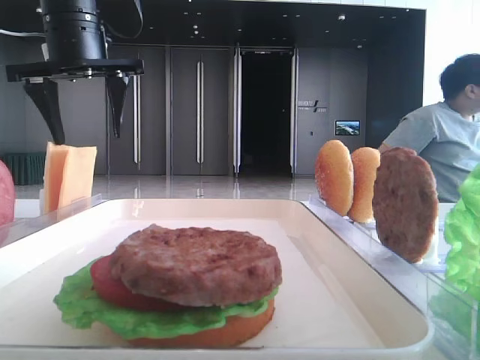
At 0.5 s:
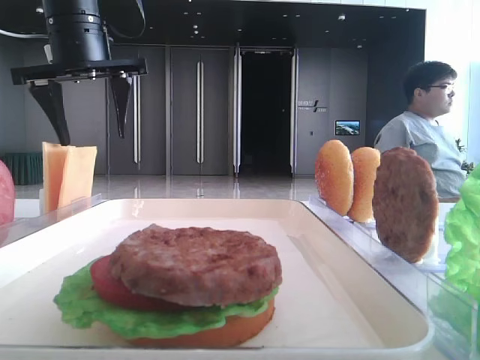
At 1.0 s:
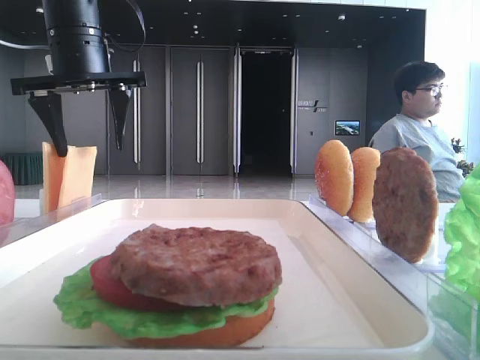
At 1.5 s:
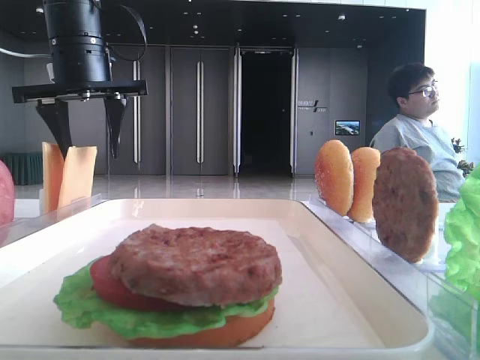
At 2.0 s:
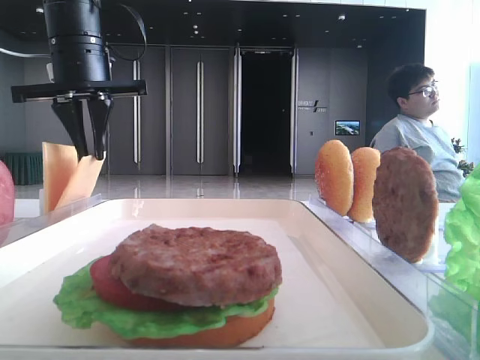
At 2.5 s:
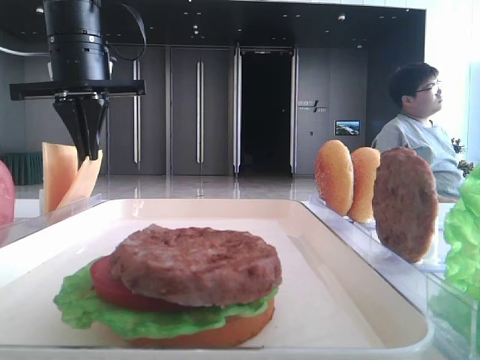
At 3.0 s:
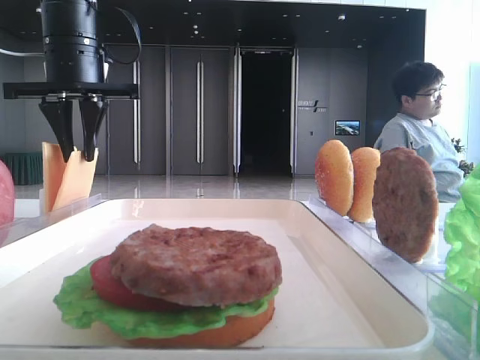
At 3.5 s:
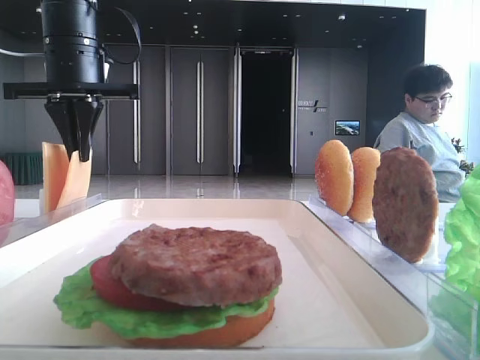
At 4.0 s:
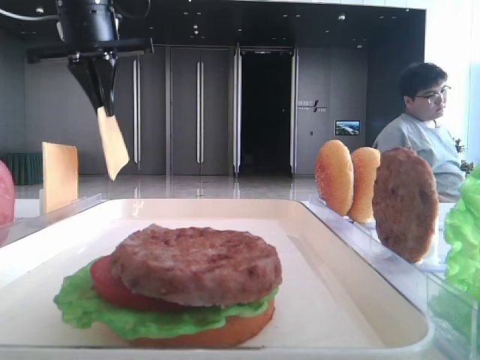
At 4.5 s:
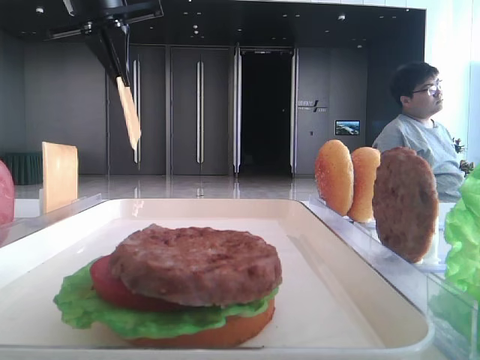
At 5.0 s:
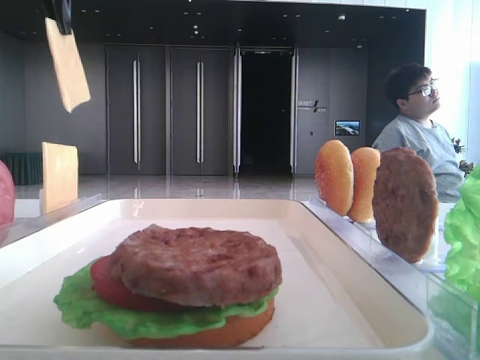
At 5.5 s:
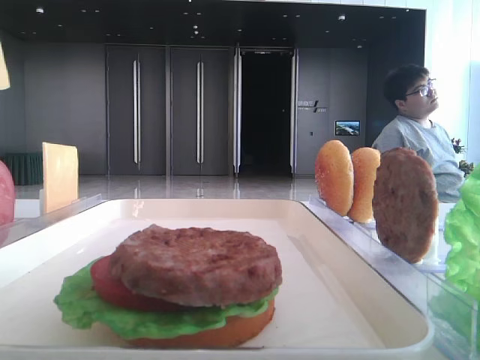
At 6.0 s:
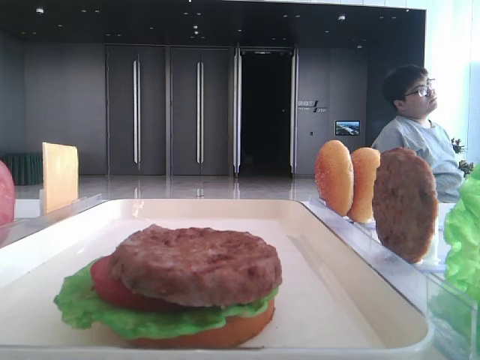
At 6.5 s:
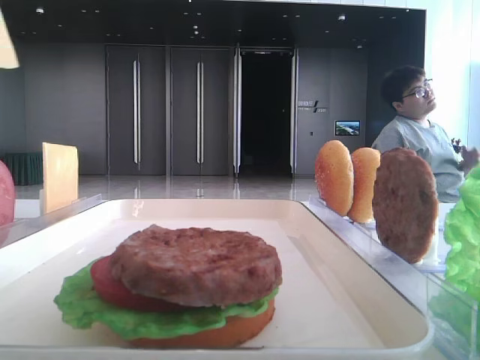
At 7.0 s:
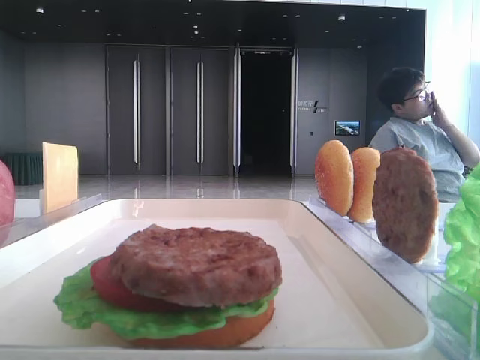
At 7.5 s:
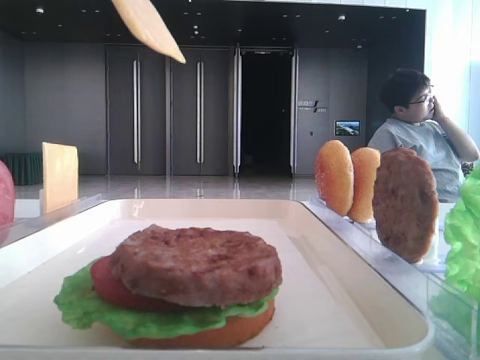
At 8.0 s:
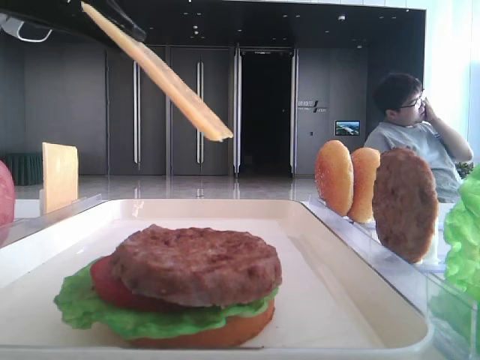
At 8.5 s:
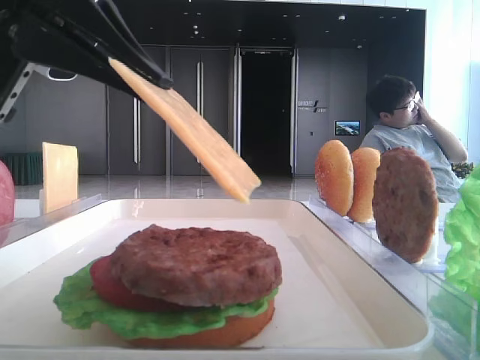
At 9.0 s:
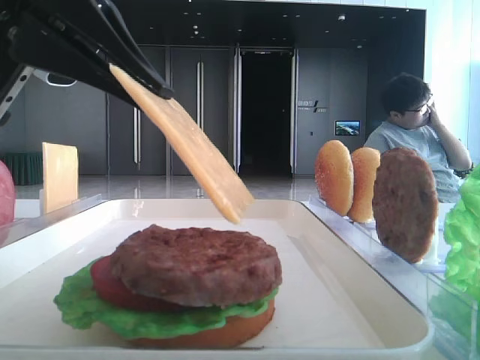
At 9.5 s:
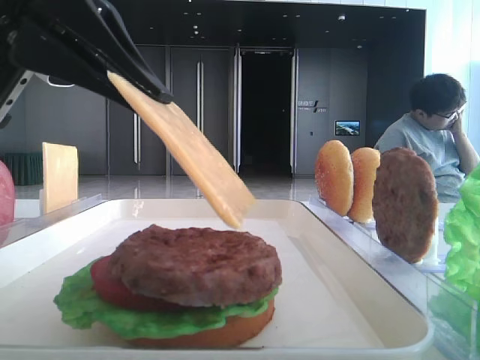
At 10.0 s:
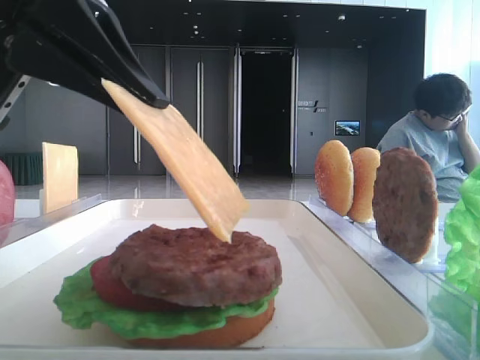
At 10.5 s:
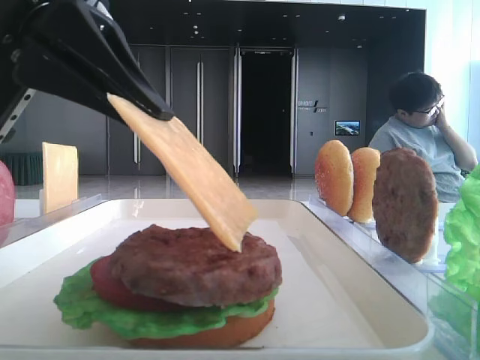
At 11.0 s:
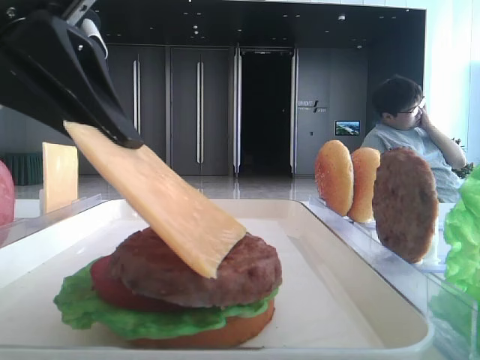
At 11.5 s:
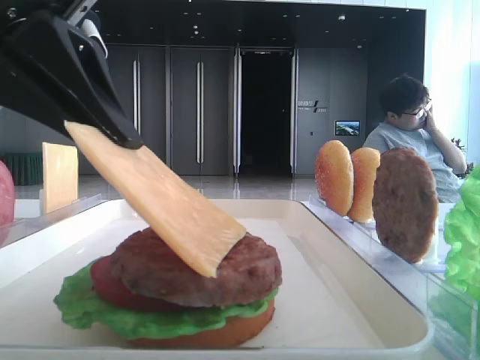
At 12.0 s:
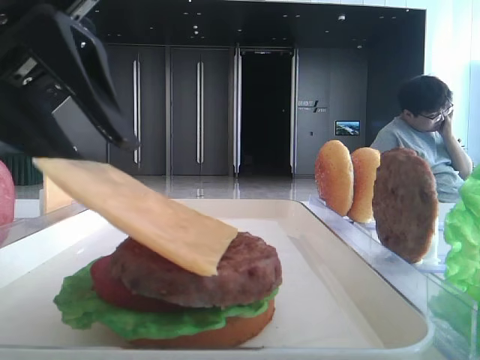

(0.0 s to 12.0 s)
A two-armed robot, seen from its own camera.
Step, 0.0 s - 3.5 s: Pick up the cheese slice with the left hand.
0.0 s - 2.0 s: The left gripper closes.
2.0 s - 4.0 s: There are only small adjustments of the grippers.
4.0 s - 6.0 s: The left gripper goes some 20 cm backward.
6.0 s - 8.0 s: The left gripper shifts some 15 cm downward and to the right.
8.0 s - 10.0 s: There are only small adjustments of the grippers.
10.0 s - 12.0 s: The left gripper opens.

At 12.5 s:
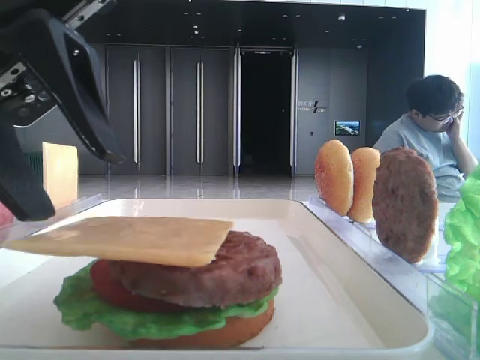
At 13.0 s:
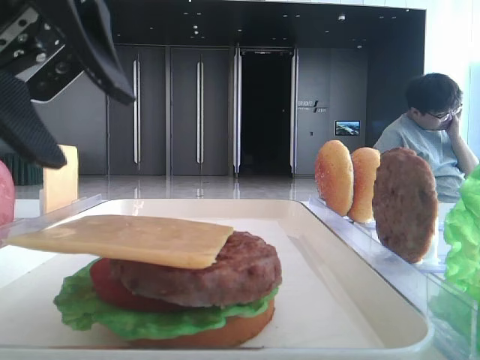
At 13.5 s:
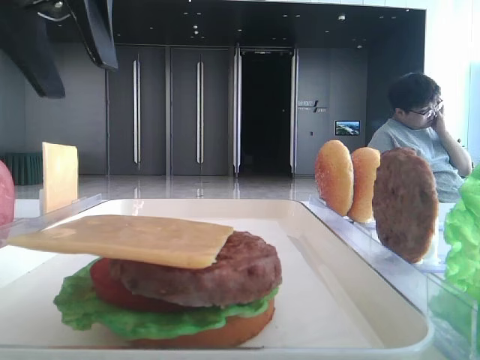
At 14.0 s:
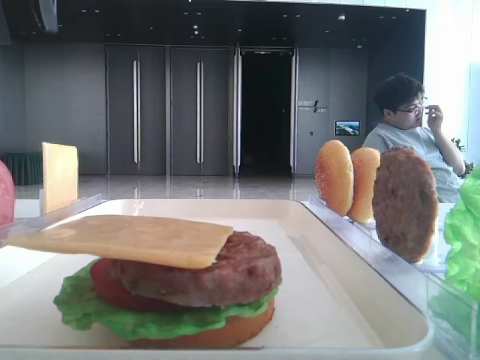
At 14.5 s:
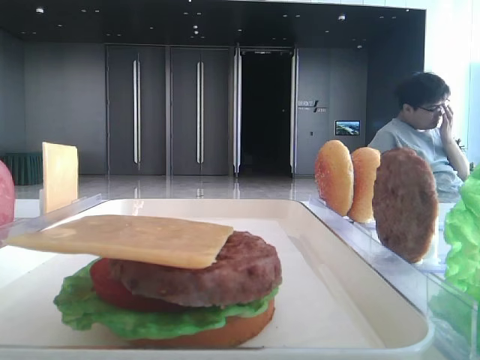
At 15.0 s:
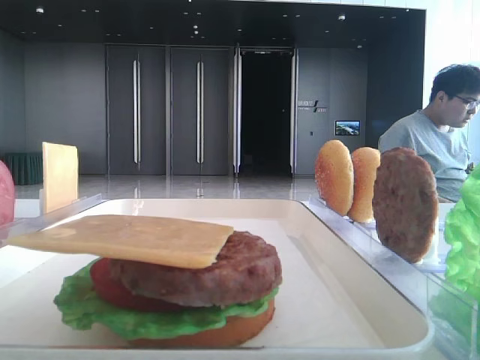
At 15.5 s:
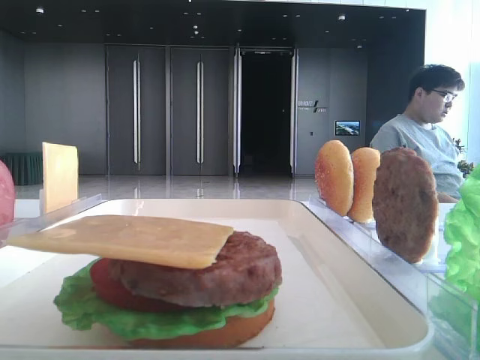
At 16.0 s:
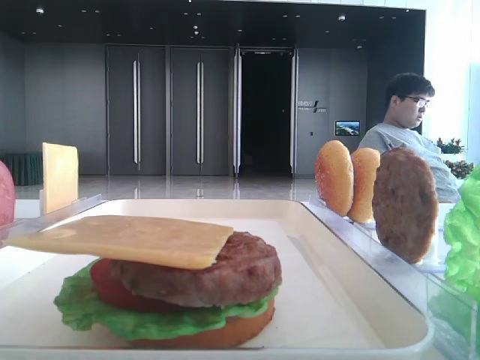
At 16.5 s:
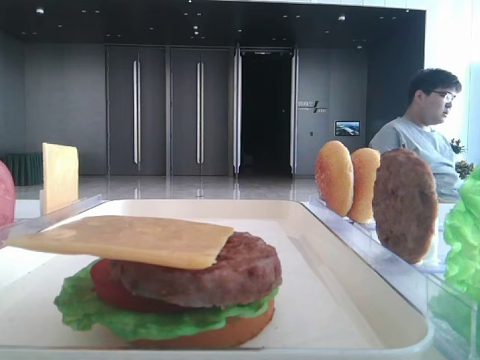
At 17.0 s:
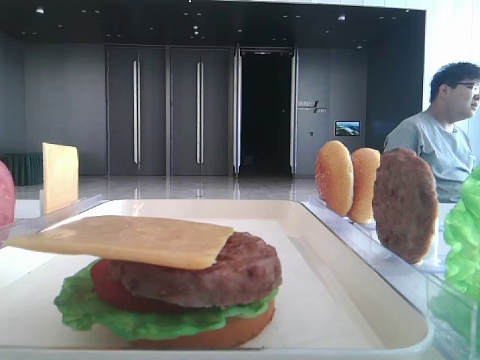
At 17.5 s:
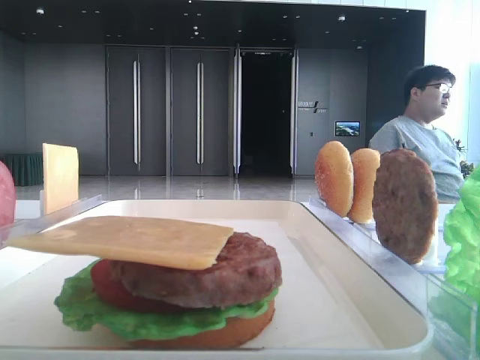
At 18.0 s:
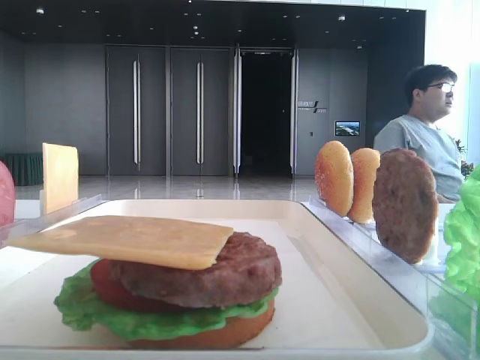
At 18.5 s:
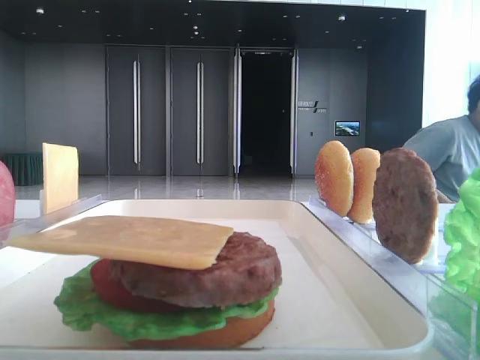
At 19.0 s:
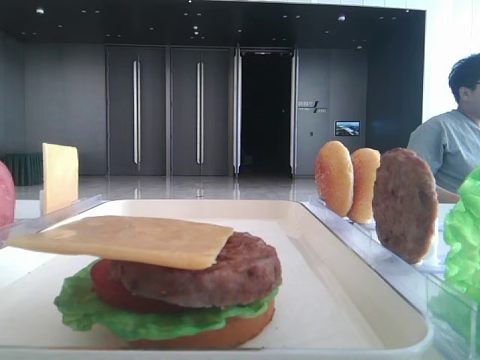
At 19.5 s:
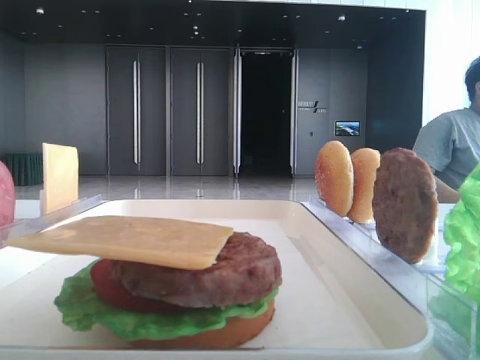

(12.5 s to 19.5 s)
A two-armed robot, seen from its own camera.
12.5 s - 14.5 s: The left gripper goes approximately 25 cm upward, to the left and forward.

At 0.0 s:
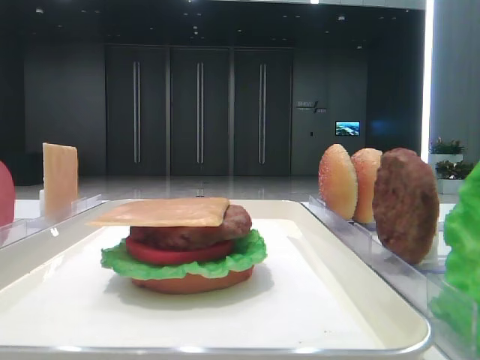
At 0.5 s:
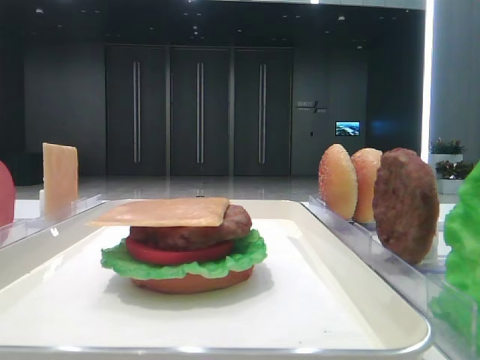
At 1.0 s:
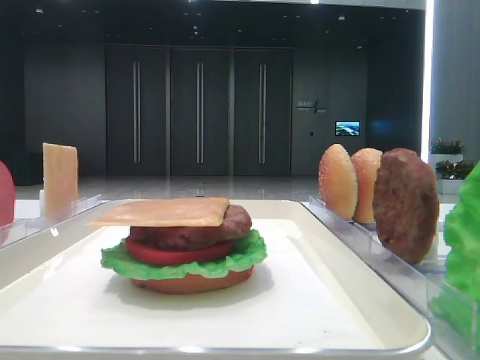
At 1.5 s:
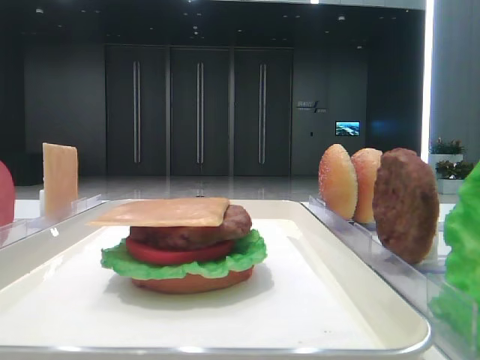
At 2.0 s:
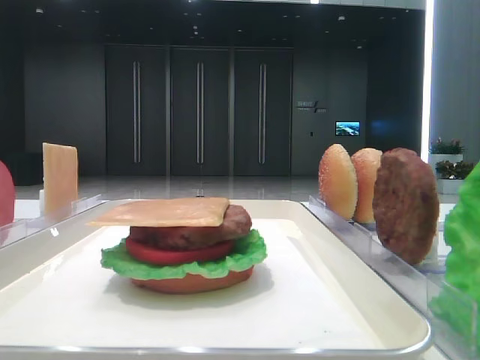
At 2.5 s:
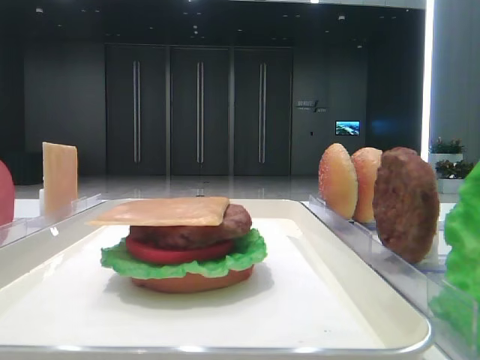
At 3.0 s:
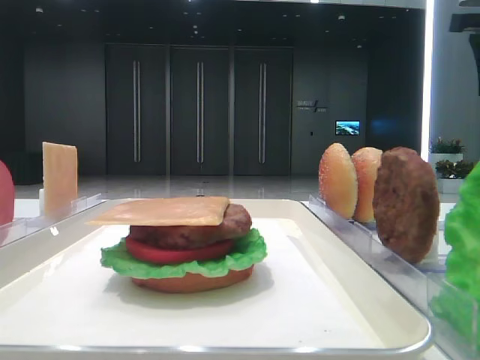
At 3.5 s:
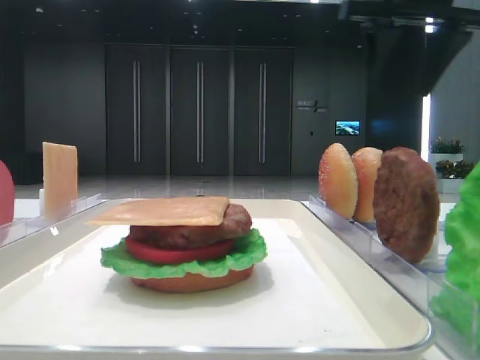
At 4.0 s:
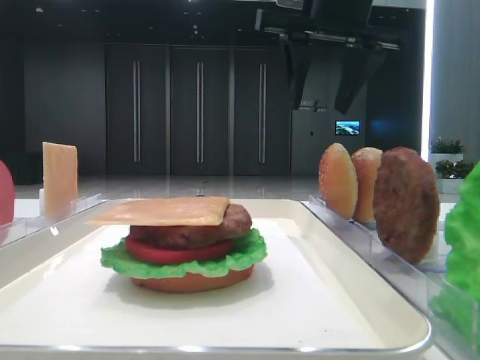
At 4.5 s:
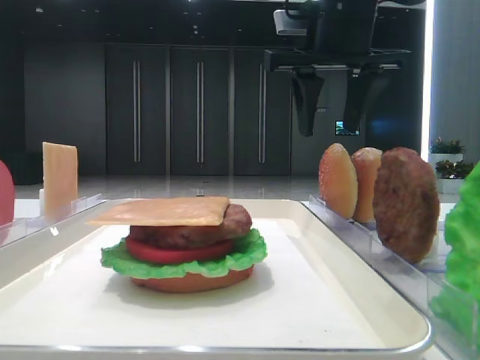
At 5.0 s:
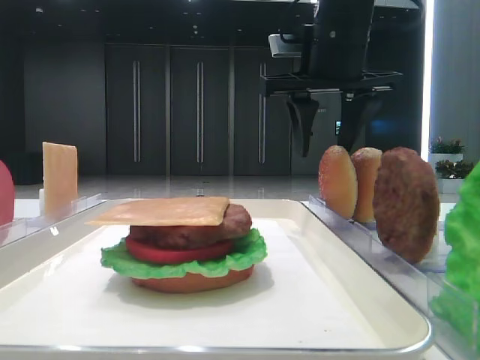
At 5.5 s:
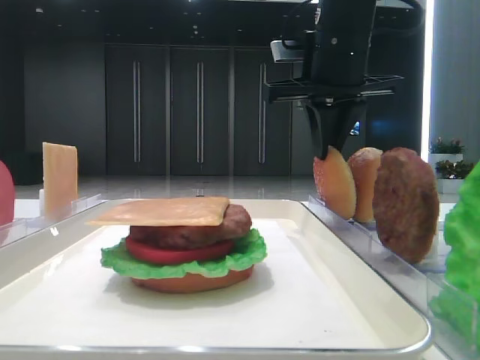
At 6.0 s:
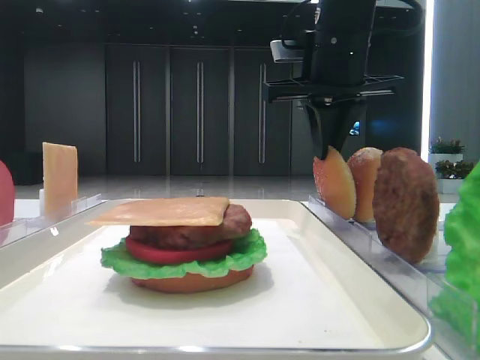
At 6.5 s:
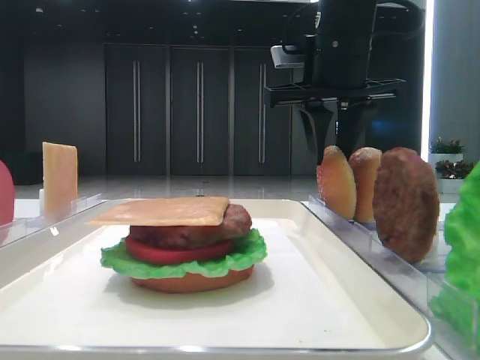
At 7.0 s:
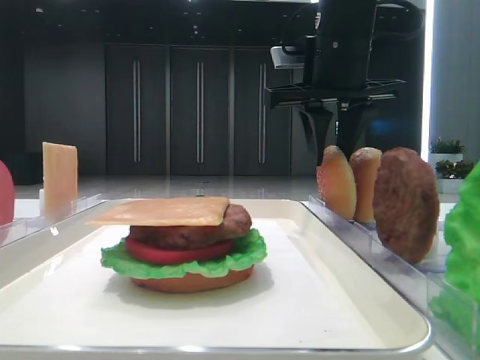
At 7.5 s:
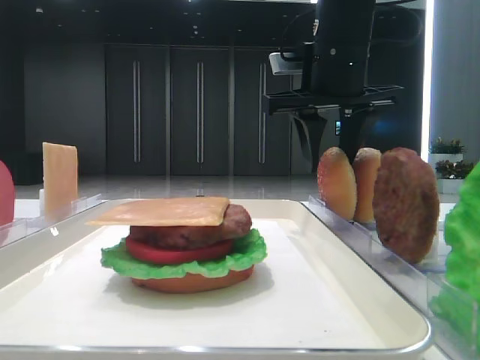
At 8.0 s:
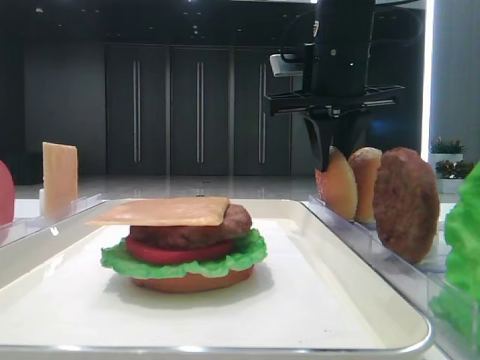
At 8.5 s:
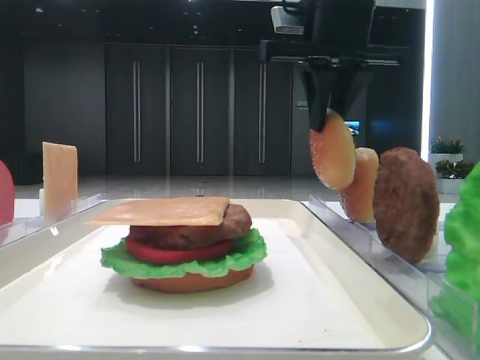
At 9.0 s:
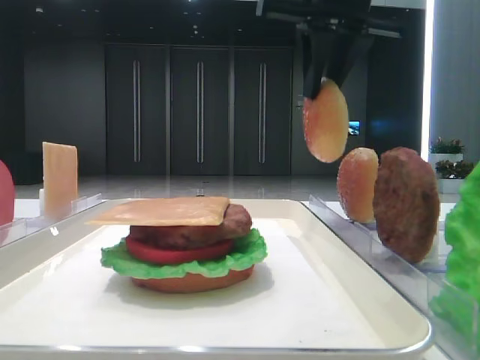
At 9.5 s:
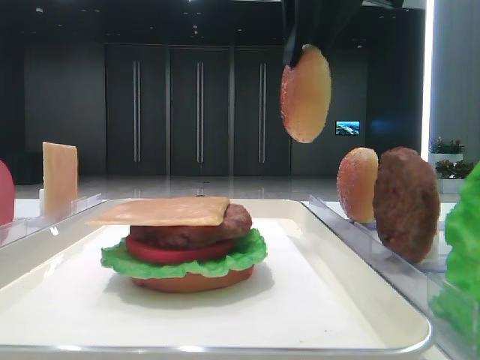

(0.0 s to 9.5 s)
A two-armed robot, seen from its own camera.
Step, 0.0 s - 8.0 s: Pick up the top bread slice with the right hand.
2.0 s - 4.0 s: The right gripper goes some 35 cm forward and to the left.
4.0 s - 5.5 s: The right gripper goes some 5 cm downward, and closes up; the left gripper closes up.
5.5 s - 7.5 s: The right gripper opens up.
7.5 s - 9.5 s: The right gripper shifts some 15 cm upward and backward, and closes up.
